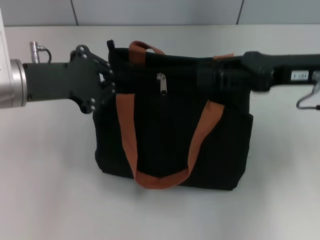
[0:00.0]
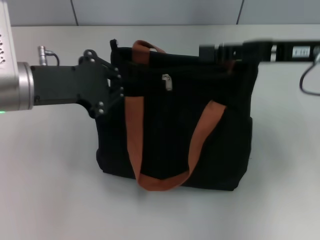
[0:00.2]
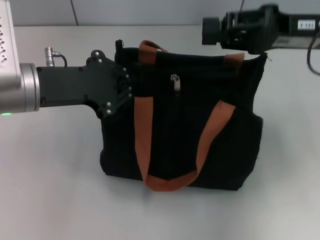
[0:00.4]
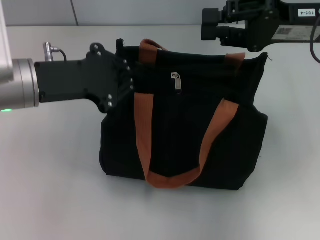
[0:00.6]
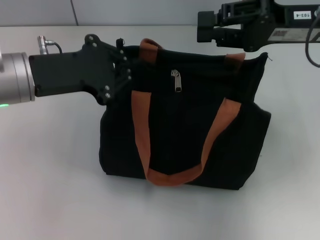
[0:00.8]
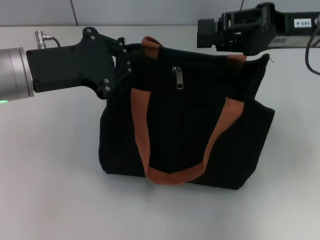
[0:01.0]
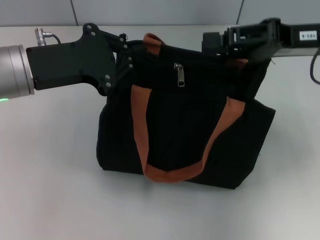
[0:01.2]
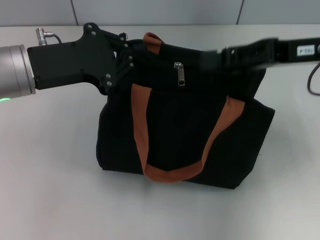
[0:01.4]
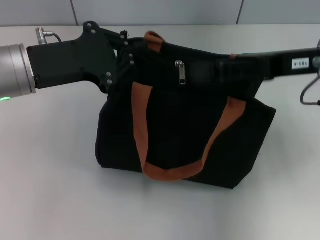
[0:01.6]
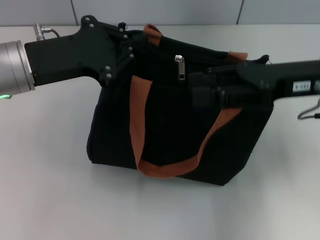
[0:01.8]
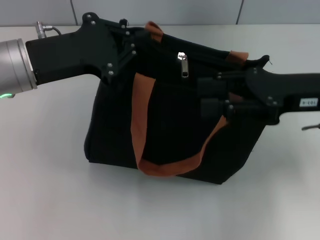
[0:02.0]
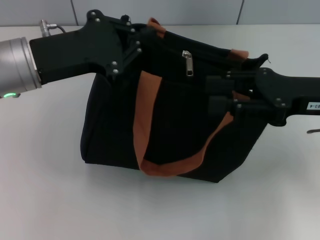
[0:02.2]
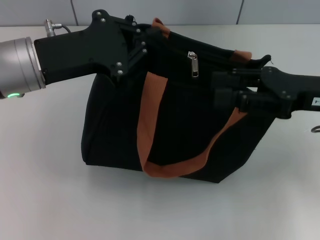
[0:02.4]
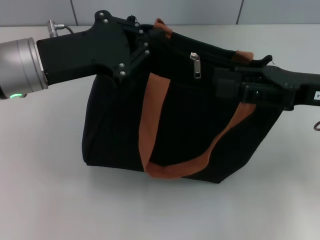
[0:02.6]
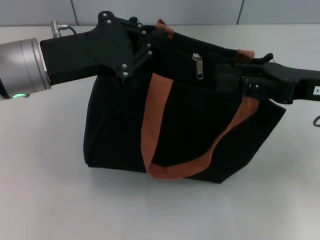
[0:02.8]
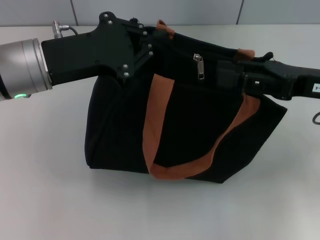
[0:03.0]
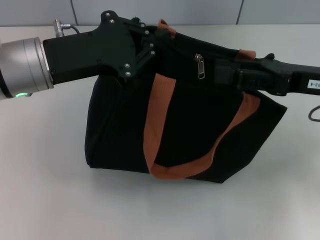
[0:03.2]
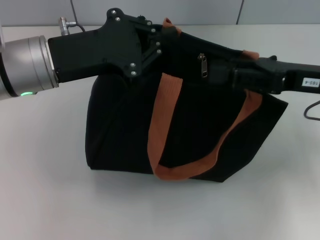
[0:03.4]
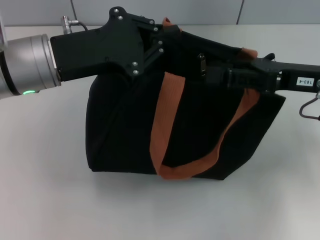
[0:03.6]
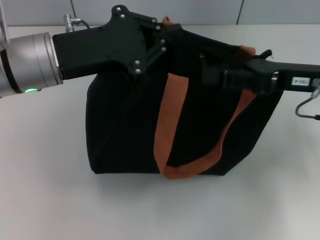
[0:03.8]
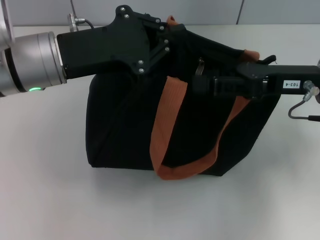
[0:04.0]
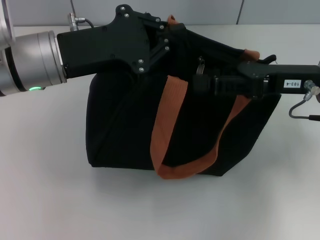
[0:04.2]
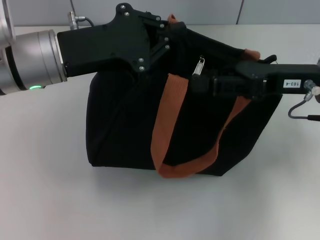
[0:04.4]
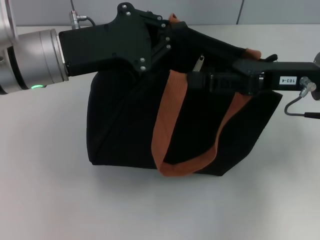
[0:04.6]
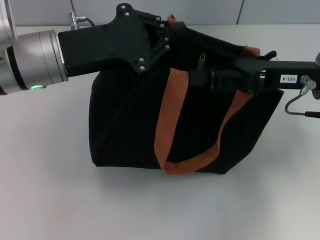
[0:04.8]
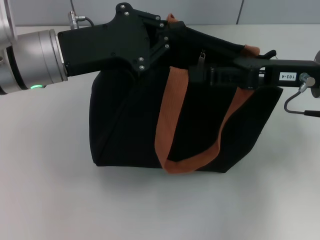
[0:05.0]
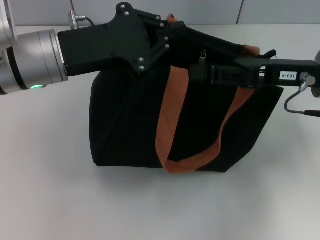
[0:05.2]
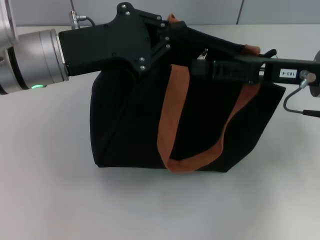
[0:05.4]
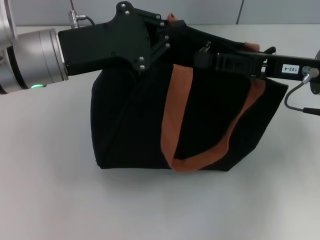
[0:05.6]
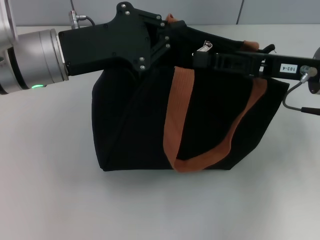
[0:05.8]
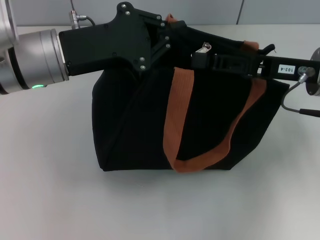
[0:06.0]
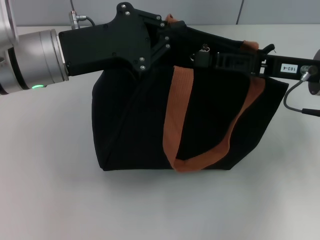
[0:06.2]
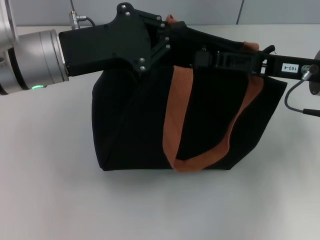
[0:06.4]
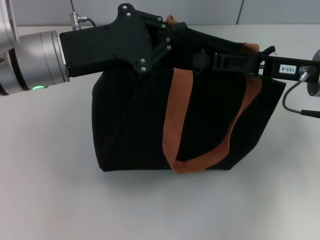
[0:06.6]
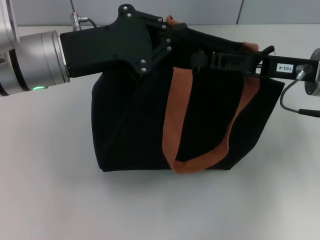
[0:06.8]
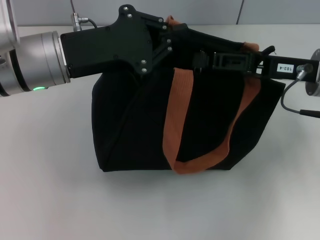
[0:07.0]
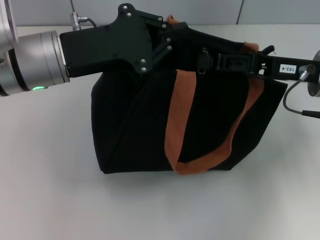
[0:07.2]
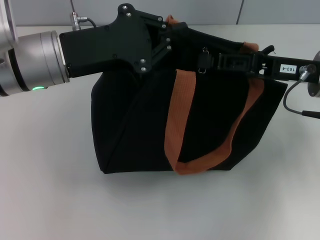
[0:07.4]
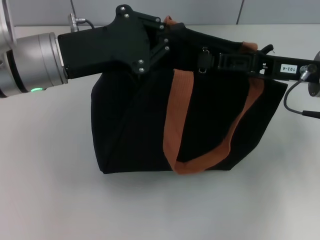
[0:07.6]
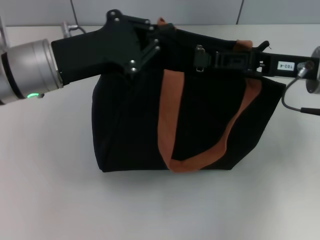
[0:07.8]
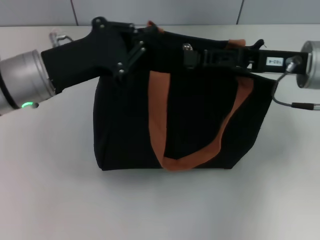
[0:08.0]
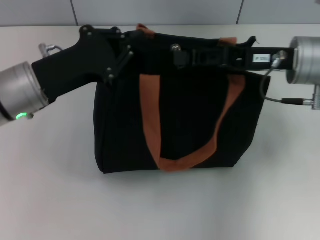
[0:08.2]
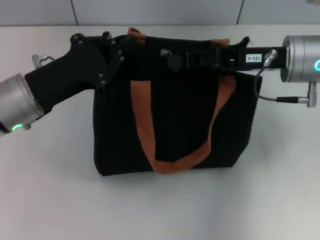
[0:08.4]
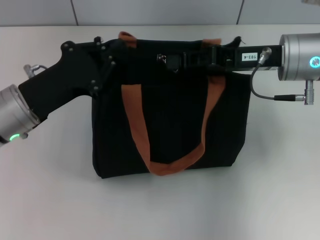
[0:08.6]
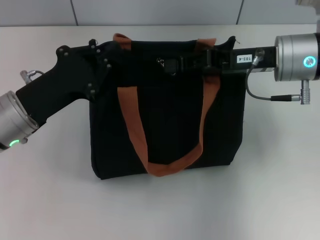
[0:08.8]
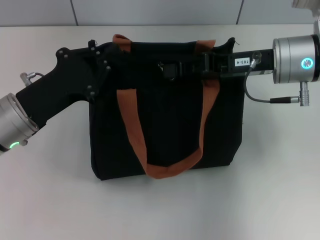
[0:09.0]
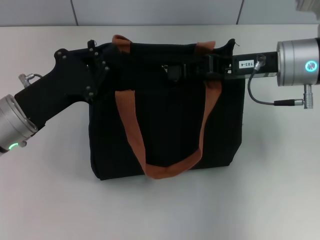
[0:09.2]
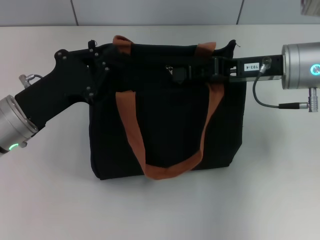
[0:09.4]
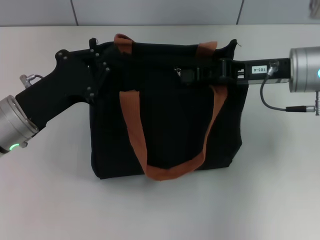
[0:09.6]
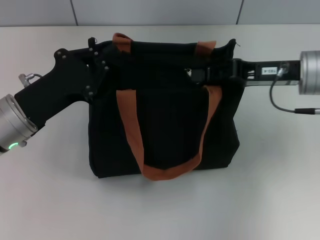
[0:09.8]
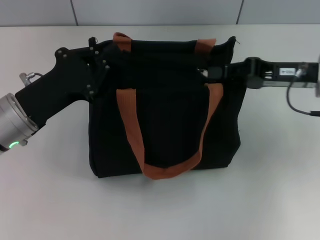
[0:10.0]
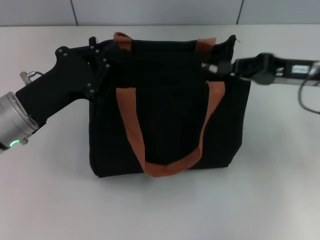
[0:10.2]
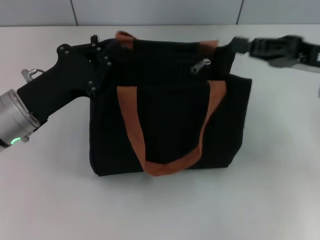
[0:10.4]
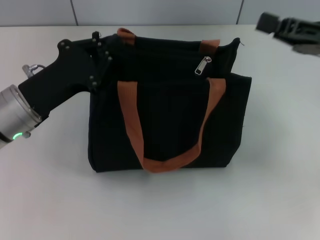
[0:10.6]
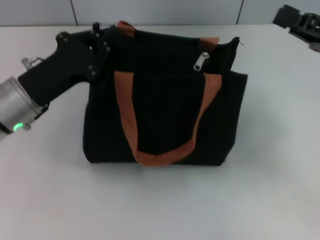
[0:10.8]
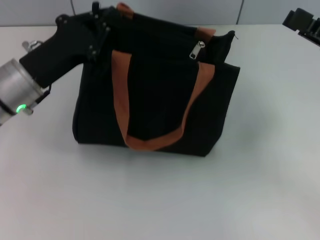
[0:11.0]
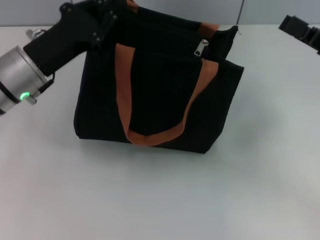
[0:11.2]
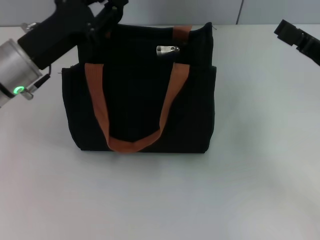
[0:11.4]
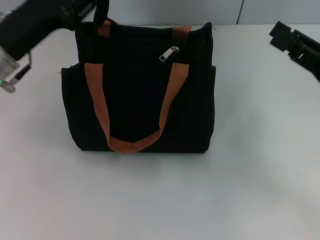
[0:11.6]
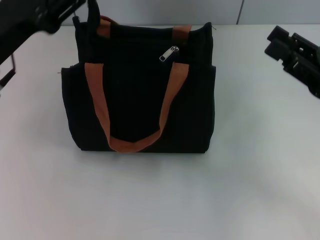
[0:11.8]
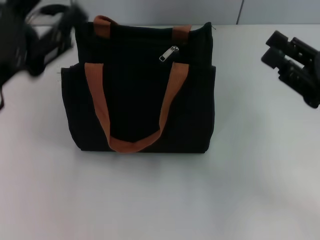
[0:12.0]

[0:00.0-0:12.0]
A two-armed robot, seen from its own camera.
Step, 0:00.0 to 0:10.2: Pull up the zipper with your right hand.
Step, 0:10.4 to 0:11.8: Grab the zipper with your left hand.
0:01.6 to 0:03.0: The right gripper shifts by some 5 cm.
0:03.0 to 0:04.4: The grippers move only a little.
0:04.4 to 0:06.0: The right gripper closes up.
0:06.0 to 0:07.6: The grippers move only a little.
0:07.6 to 0:09.0: The left gripper heads downward and to the left, covering approximately 10 cm. The right gripper shifts by approximately 5 cm.
0:09.0 to 0:10.4: The right gripper shifts some 10 cm to the right.
0:10.4 to 0:12.0: The left gripper heads upward, covering roughly 5 cm, and opens its fingers. Meanwhile the right gripper moves backward and downward, about 10 cm, and opens up.

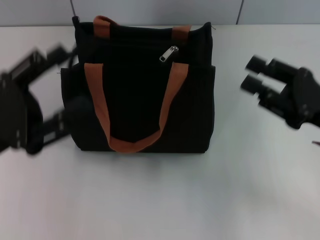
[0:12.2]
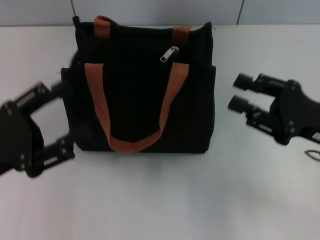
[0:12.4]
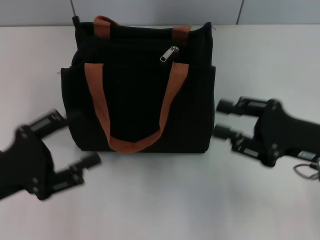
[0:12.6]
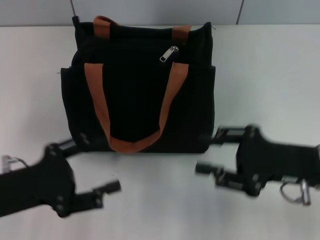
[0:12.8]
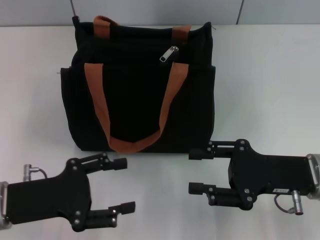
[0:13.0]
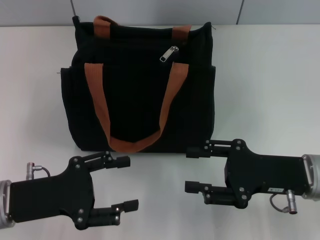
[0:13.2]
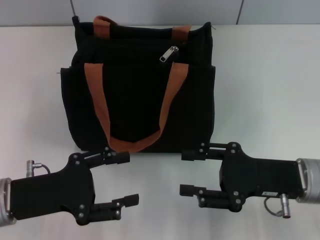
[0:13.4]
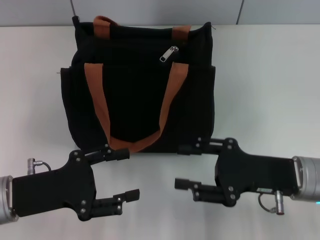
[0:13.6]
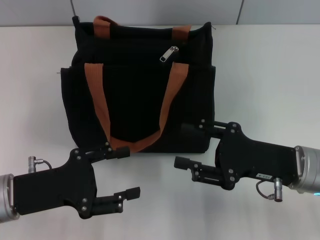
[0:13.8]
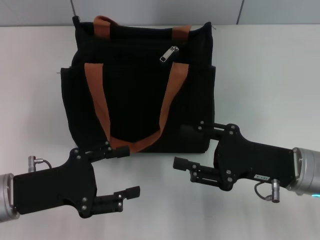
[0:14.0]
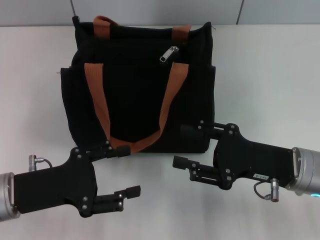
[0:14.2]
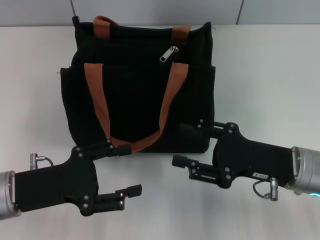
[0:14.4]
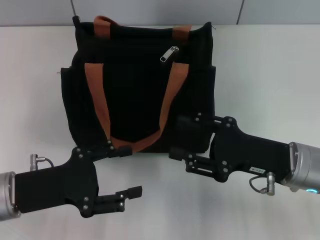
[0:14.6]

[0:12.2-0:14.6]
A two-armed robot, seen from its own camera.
0:12.2 to 0:13.4: The right gripper travels to the left by roughly 5 cm, while the left gripper shifts approximately 5 cm downward.
0:13.4 to 0:14.6: The grippers move only a little.

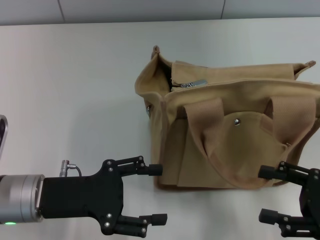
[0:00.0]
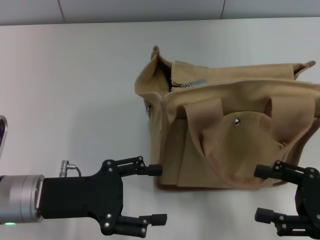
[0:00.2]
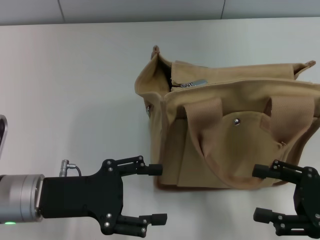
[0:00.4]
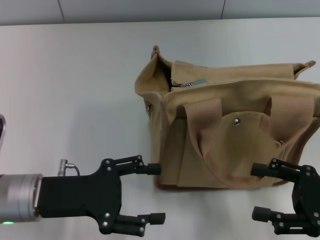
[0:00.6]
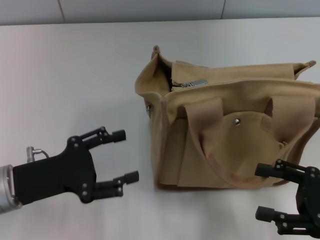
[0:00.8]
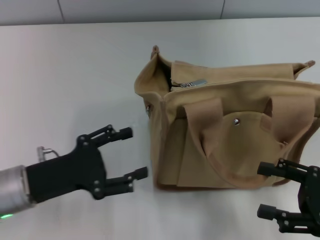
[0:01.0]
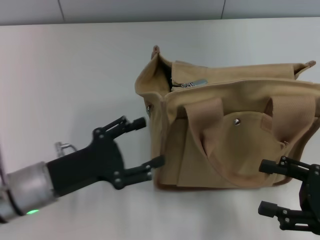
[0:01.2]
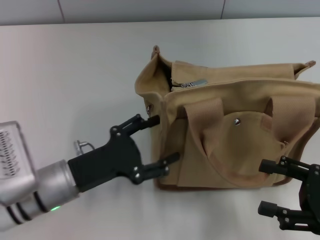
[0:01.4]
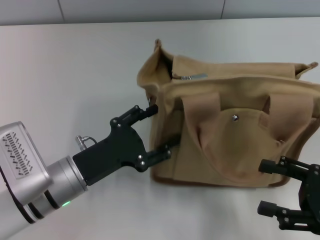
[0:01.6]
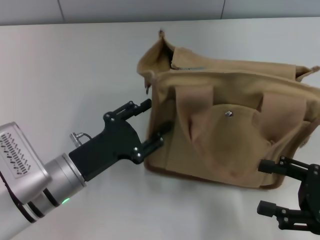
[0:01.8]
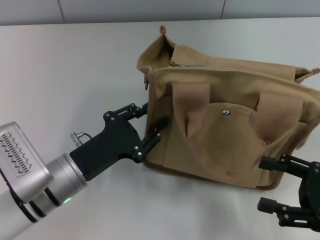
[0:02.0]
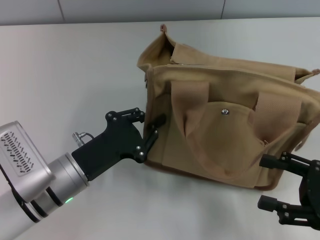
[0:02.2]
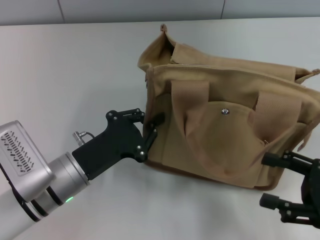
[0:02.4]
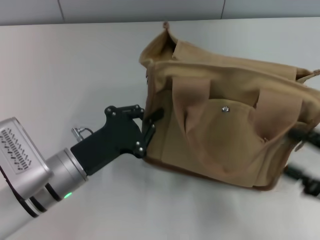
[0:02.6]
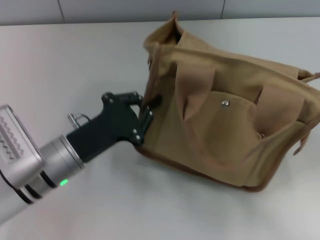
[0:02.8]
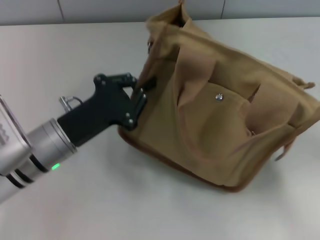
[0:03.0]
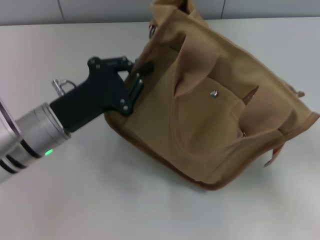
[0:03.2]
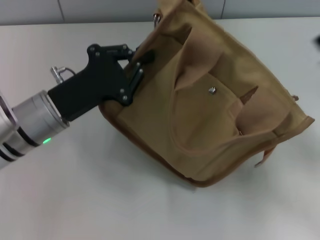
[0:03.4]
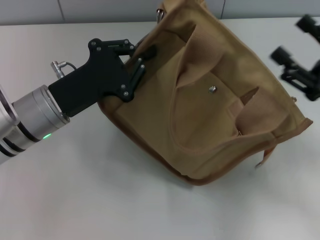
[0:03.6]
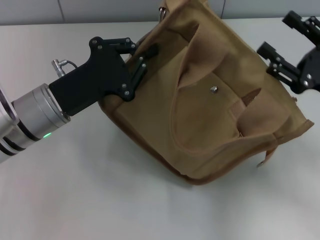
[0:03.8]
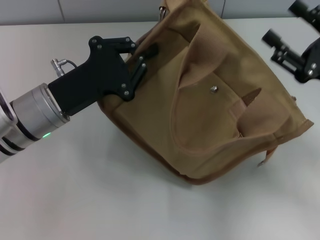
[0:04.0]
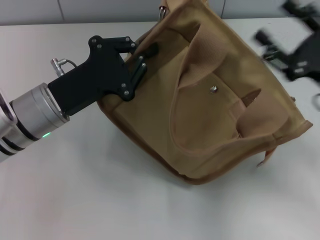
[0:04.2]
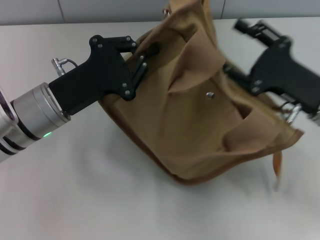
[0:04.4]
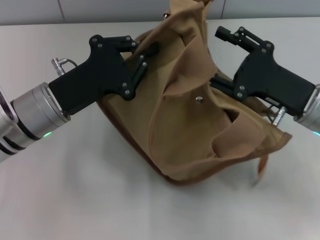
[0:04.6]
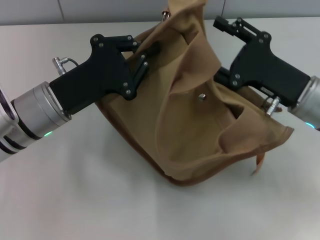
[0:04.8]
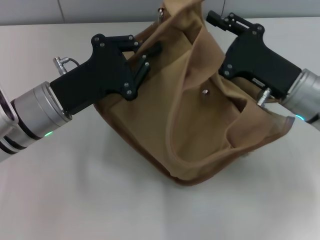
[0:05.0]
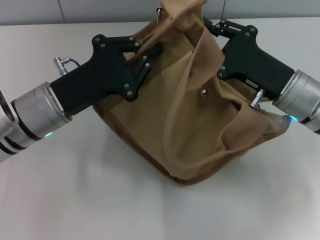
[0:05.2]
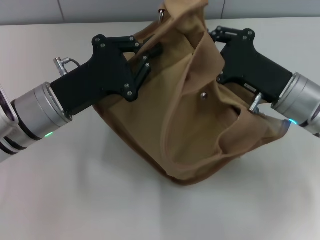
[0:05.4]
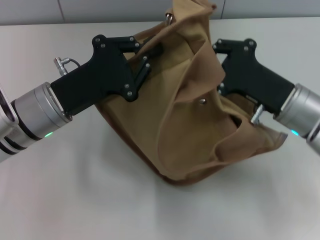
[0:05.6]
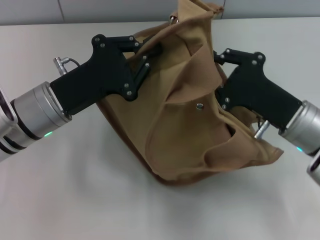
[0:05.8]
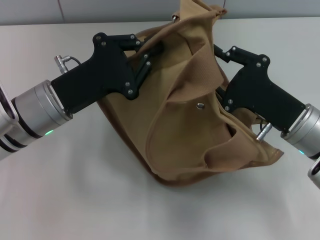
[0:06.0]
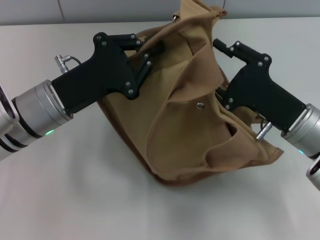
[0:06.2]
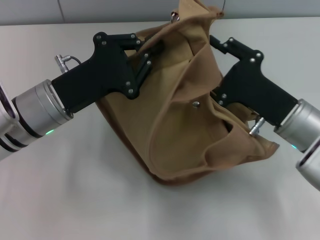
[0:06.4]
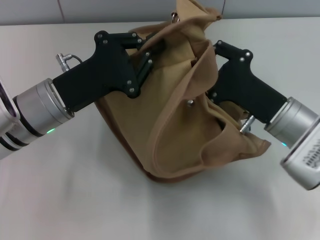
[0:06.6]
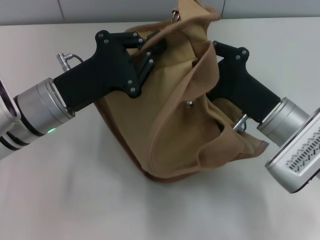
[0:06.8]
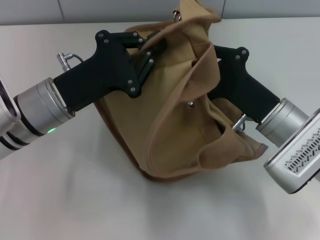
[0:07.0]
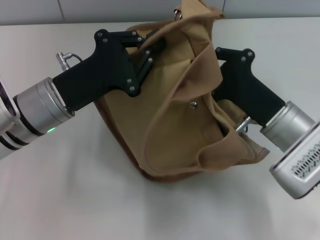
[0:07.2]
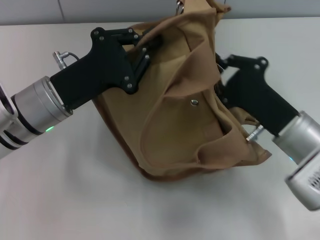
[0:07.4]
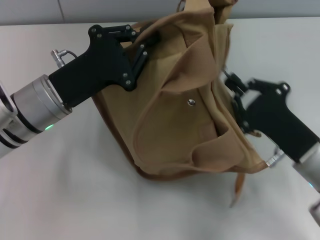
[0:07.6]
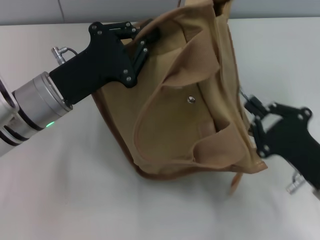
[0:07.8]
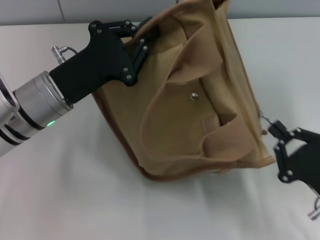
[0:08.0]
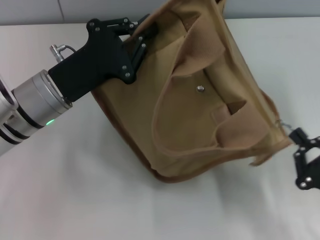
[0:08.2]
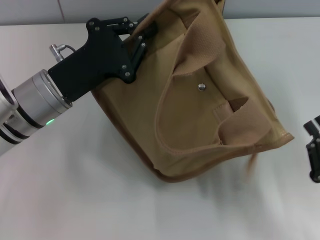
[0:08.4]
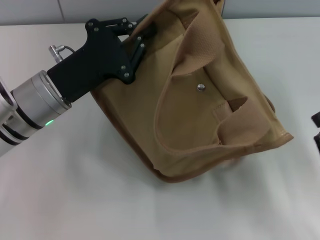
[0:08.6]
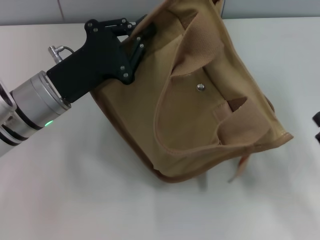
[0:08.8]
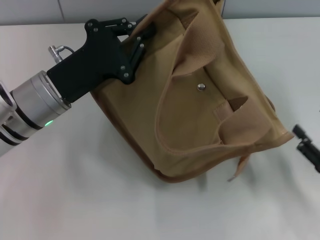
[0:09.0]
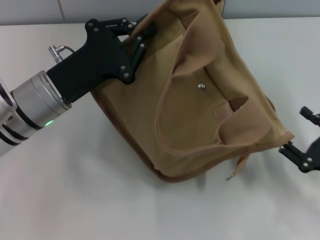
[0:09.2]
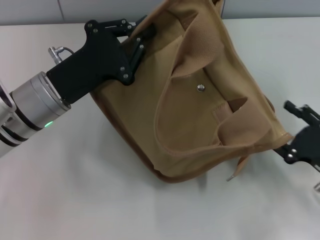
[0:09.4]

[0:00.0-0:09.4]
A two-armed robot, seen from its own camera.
Step, 0:00.0 to 0:08.2: Pull open the zipper with your right hand.
0:00.0 to 0:01.6: The left gripper ends up approximately 5 cm from where it was.
0:01.6 to 0:03.2: The left gripper shifts approximately 5 cm forward, and closes up.
0:03.2 to 0:04.8: The right gripper moves to the left and forward, roughly 15 cm.
0:04.8 to 0:06.2: The right gripper closes its fingers.
0:06.2 to 0:07.8: The right gripper shifts approximately 10 cm backward, and closes its fingers.
0:07.8 to 0:09.4: The right gripper is displaced to the right by roughly 5 cm, and opens up.
